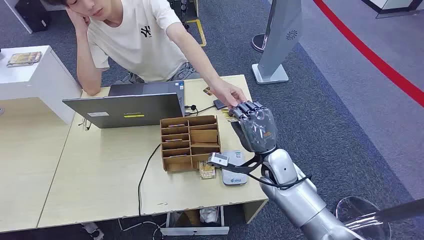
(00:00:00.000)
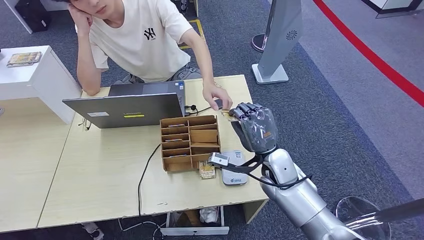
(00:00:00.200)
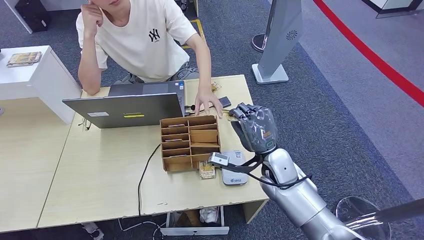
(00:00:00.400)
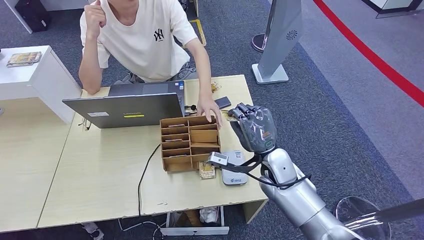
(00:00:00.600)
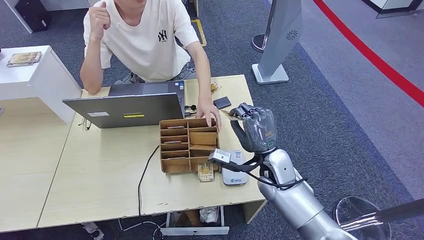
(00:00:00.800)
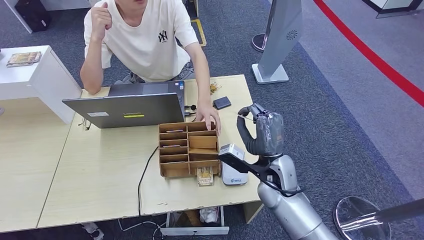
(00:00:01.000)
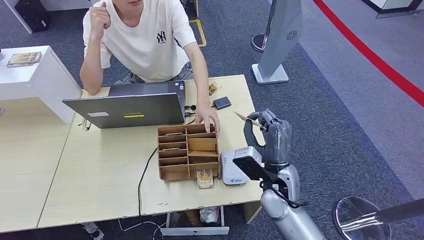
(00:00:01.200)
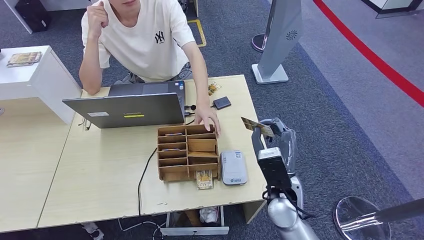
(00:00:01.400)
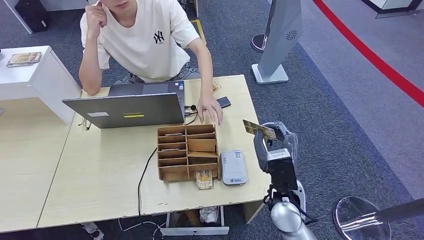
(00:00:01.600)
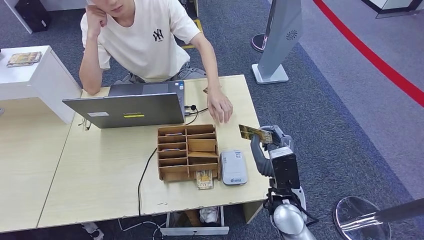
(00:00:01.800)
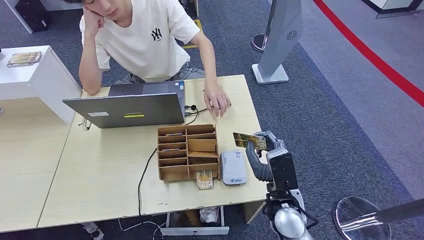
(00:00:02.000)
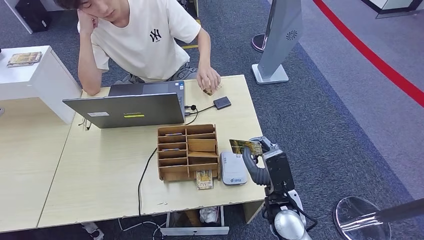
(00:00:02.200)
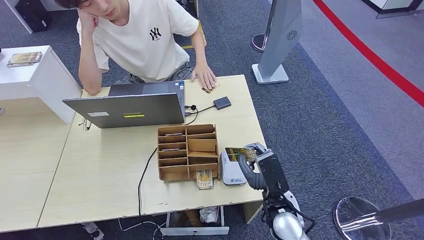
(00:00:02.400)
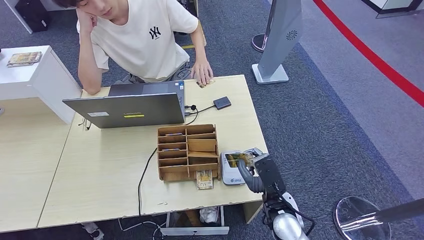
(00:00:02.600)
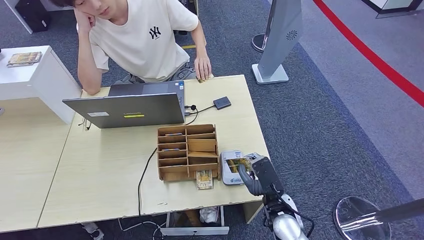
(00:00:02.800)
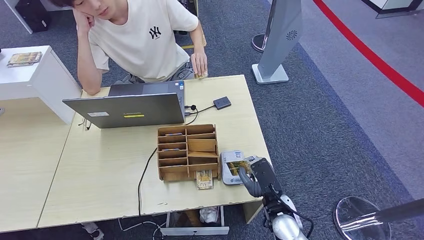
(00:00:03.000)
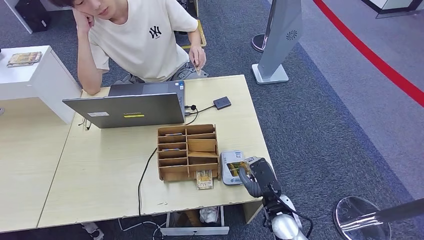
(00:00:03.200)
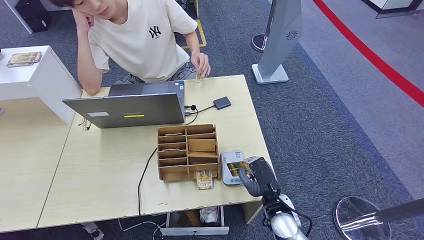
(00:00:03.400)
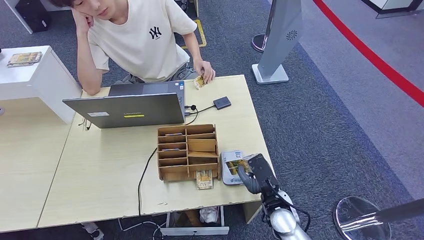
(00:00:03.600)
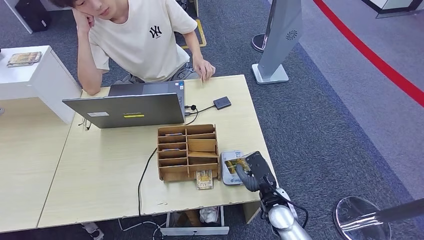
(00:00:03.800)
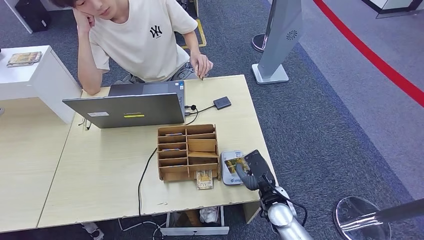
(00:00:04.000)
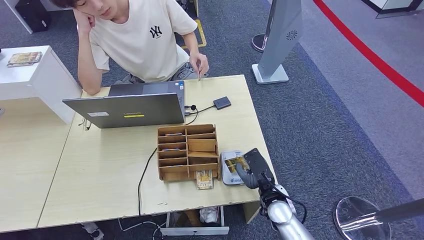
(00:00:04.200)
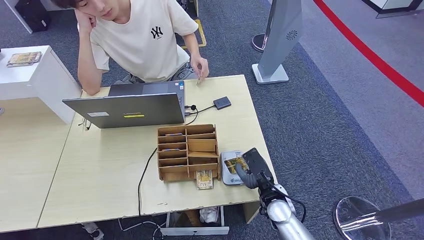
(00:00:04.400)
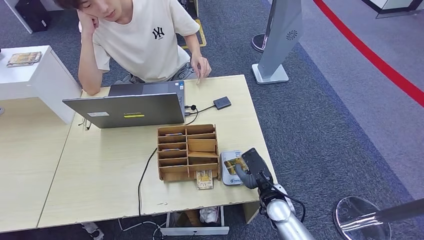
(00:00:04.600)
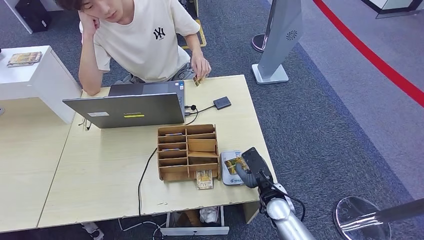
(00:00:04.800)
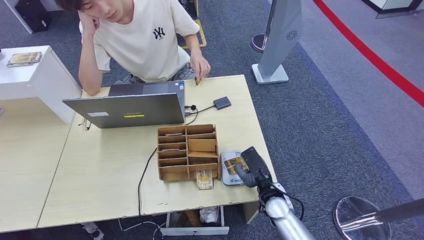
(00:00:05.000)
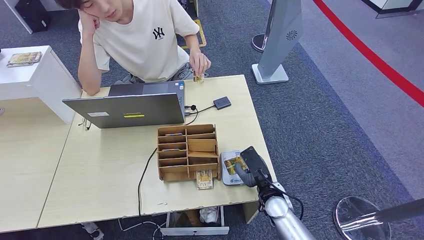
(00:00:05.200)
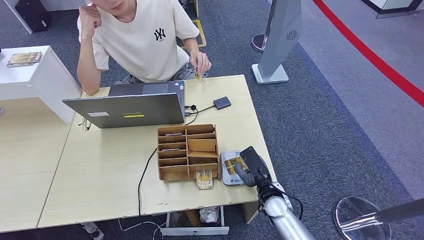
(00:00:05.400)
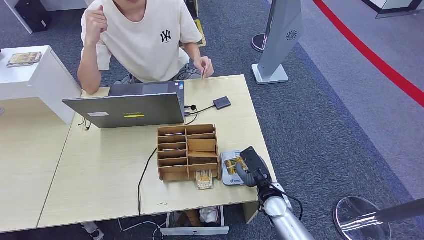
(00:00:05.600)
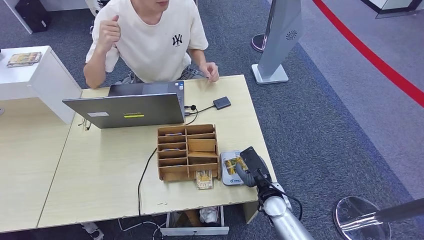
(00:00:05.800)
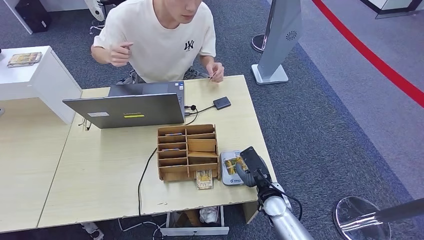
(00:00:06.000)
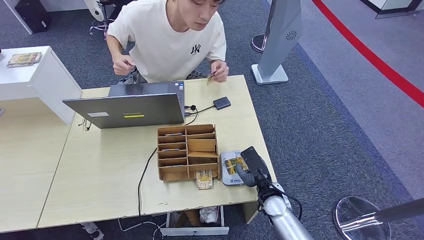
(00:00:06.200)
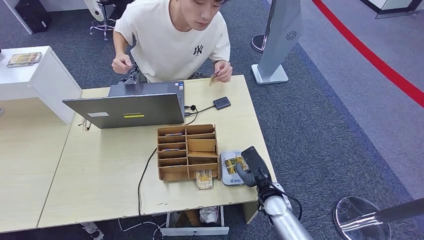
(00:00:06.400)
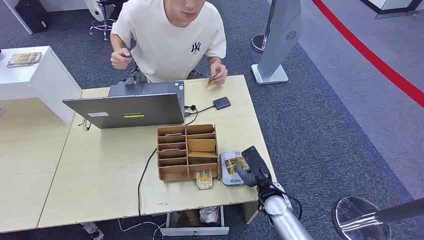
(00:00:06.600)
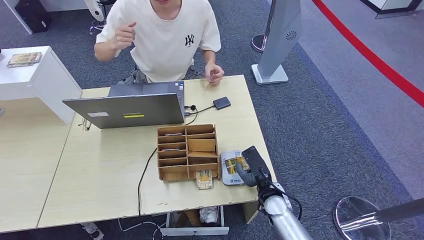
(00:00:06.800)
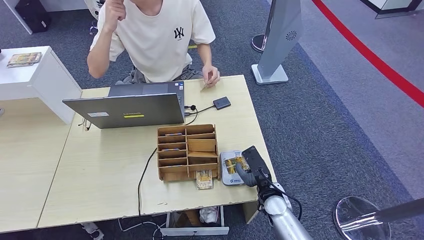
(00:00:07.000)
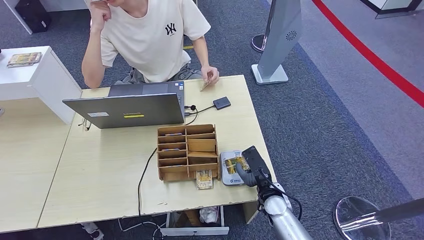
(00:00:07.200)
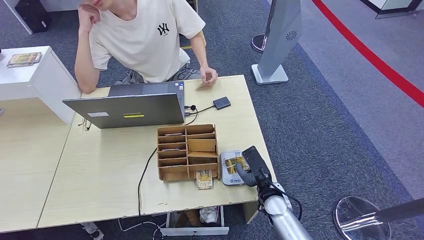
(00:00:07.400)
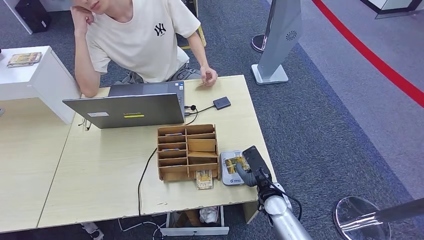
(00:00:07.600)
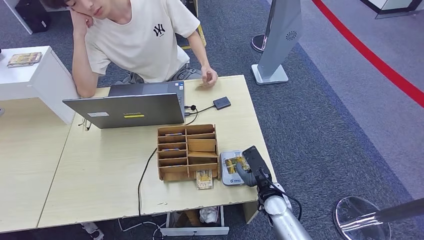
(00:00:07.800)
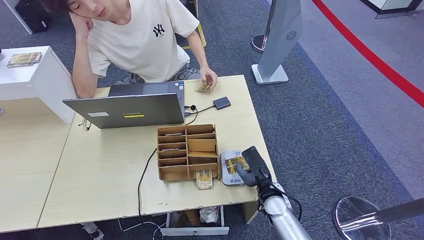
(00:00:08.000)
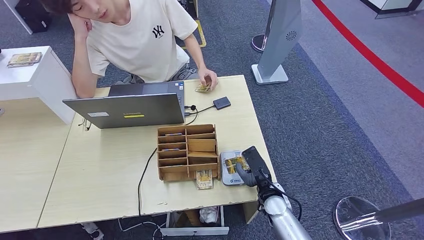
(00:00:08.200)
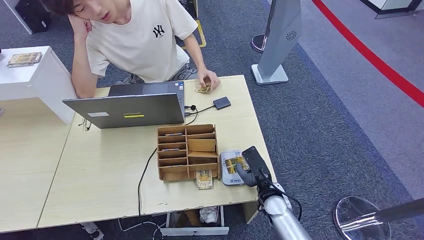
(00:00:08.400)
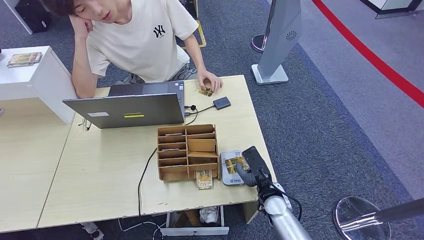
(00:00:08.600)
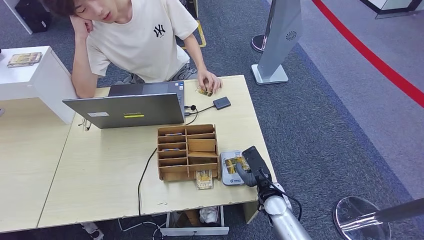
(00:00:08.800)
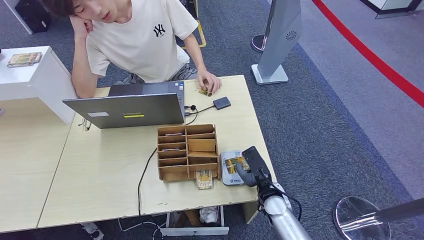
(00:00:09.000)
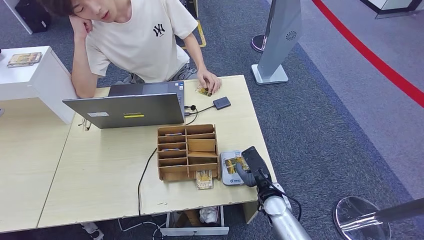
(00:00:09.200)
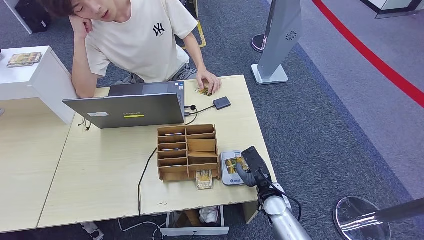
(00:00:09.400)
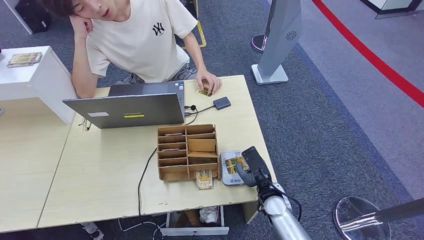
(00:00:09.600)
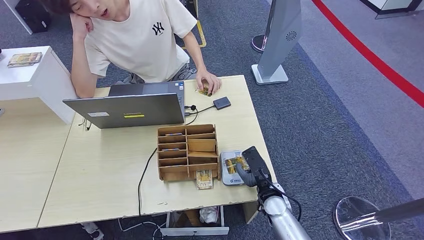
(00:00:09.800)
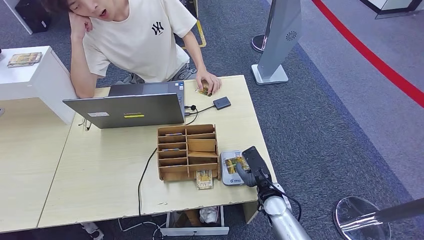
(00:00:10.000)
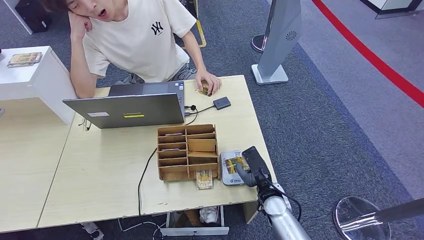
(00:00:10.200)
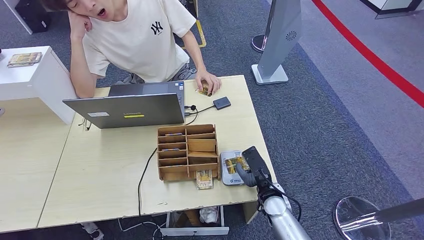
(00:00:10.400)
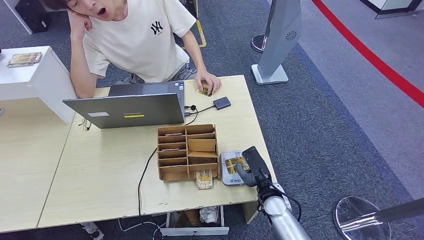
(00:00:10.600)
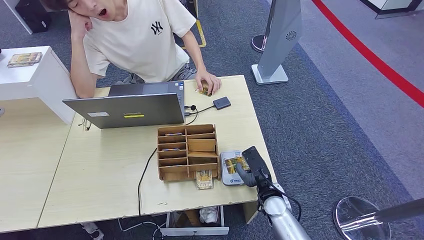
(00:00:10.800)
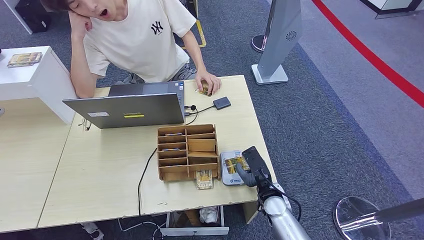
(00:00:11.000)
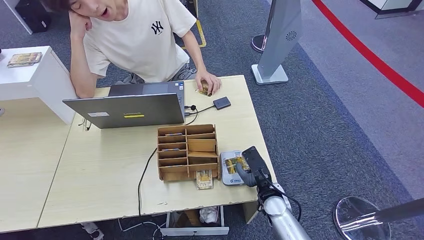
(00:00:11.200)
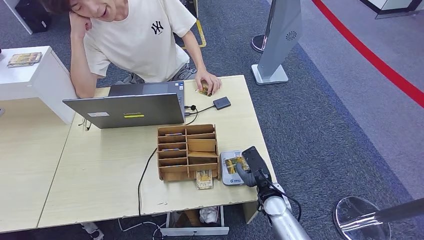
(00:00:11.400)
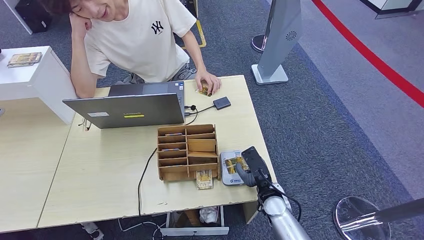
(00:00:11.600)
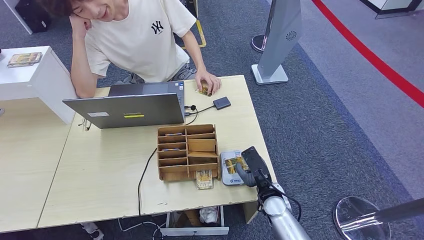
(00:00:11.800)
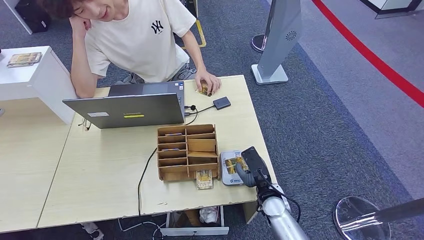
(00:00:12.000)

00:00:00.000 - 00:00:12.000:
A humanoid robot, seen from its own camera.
Step, 00:00:00.000 - 00:00:01.600: Take the ID card from the person's hand.
00:00:01.600 - 00:00:03.000: The right hand goes approximately 10 cm downward.
00:00:03.000 - 00:00:06.000: The hands move only a little.
00:00:06.000 - 00:00:12.000: Both hands stay about where they are.

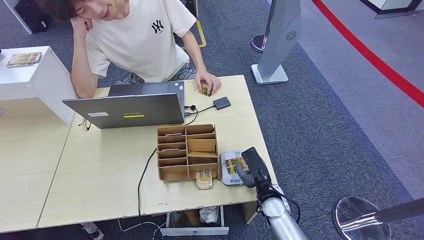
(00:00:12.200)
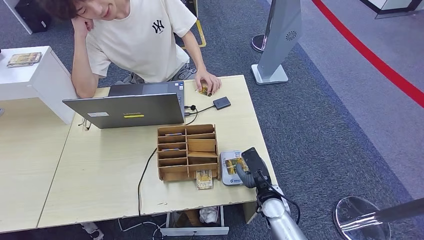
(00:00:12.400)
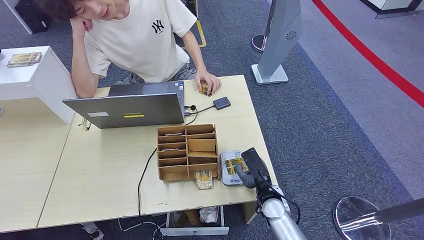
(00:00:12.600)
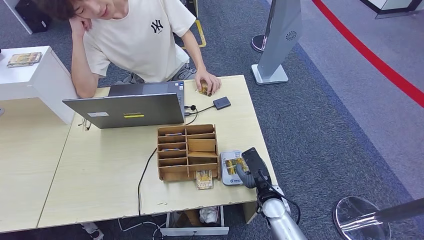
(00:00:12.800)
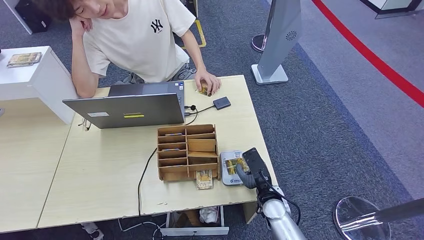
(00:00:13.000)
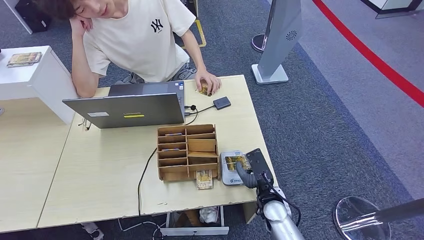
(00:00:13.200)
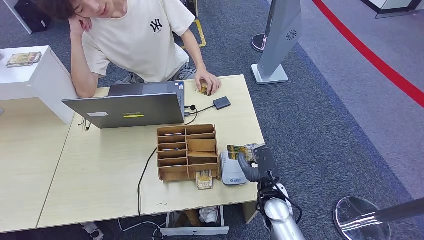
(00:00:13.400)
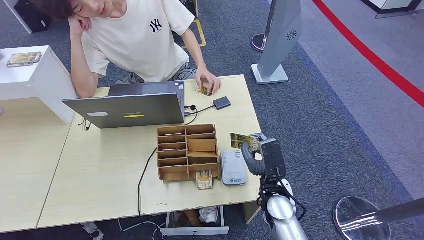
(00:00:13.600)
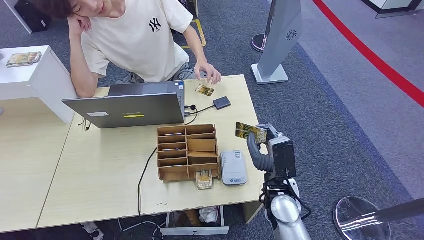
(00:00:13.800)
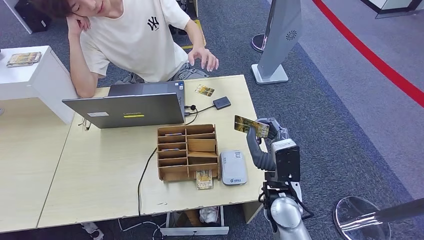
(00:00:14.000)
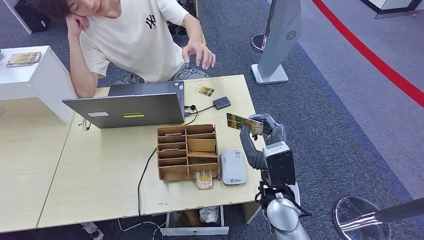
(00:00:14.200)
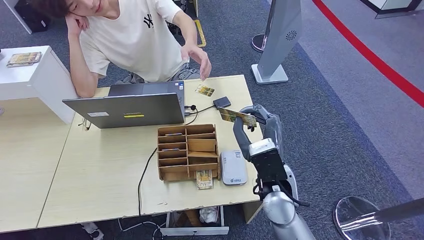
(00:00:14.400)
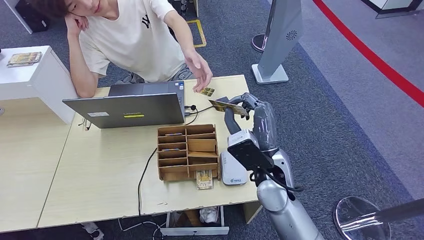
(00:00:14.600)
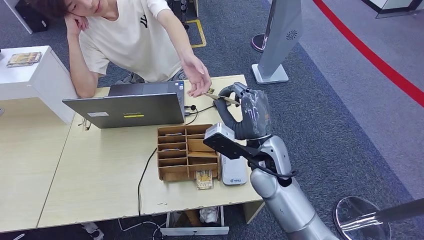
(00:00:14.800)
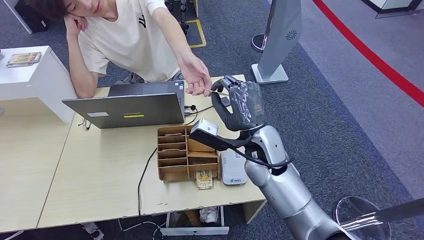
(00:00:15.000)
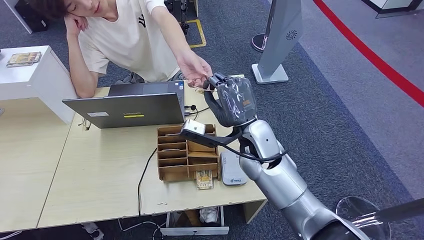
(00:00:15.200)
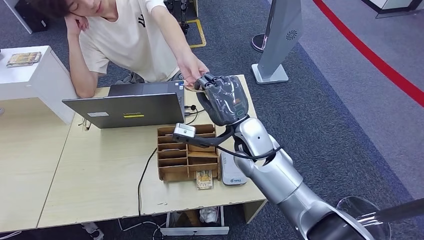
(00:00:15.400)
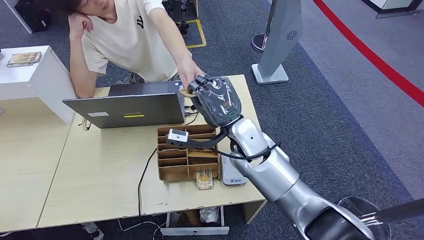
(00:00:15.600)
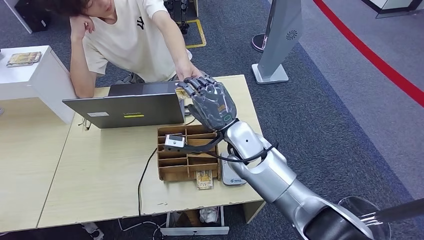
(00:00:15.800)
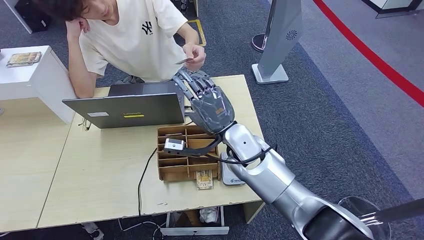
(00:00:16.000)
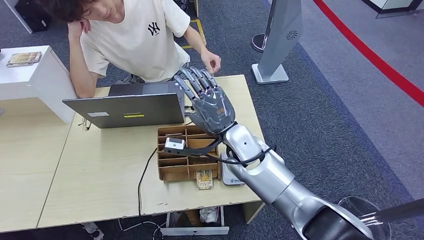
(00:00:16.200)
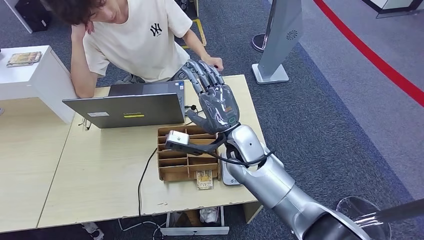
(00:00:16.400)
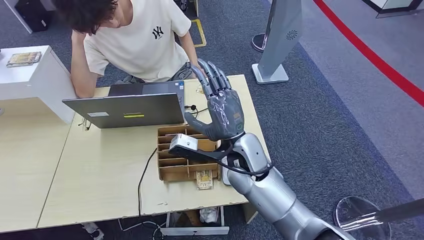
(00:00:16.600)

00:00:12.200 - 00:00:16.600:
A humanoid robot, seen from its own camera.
Step, 00:00:12.200 - 00:00:14.200: Place the ID card on the card reader.
Step, 00:00:14.400 - 00:00:16.400: Hand the ID card to the person.
00:00:12.200 - 00:00:13.600: The right hand is displaced upward by some 5 cm.
00:00:13.600 - 00:00:15.200: The right hand shifts about 20 cm upward and forward.
00:00:15.200 - 00:00:16.600: The hands move only a little.
